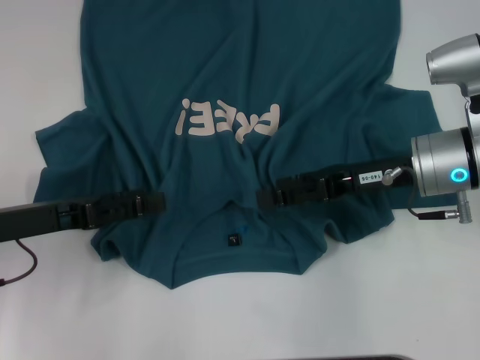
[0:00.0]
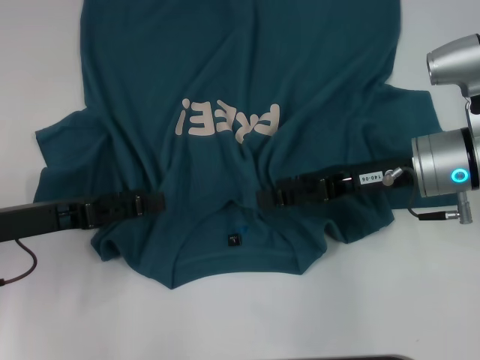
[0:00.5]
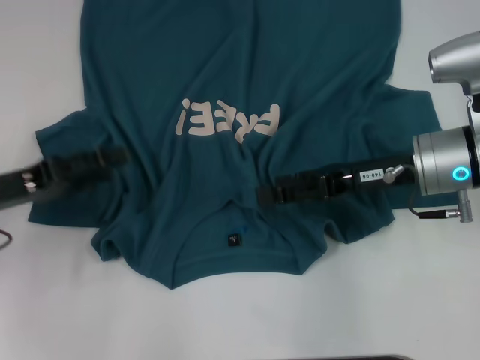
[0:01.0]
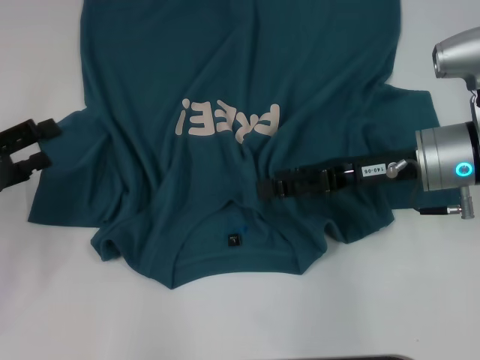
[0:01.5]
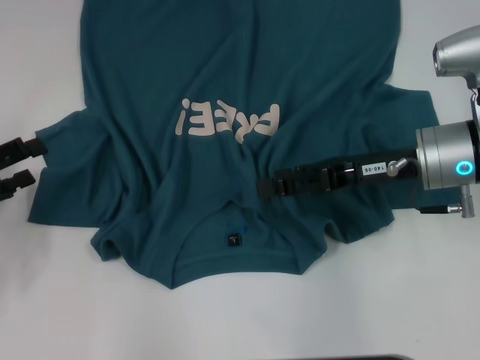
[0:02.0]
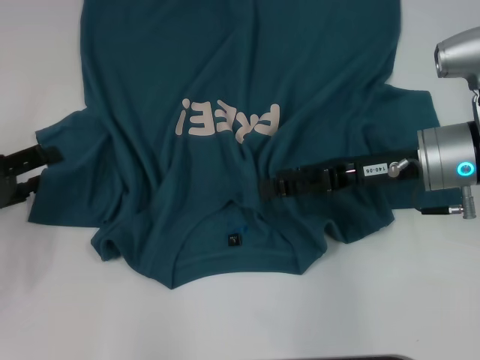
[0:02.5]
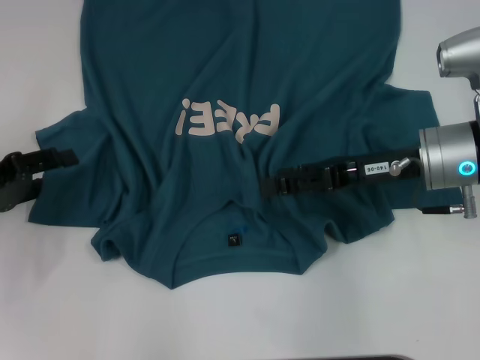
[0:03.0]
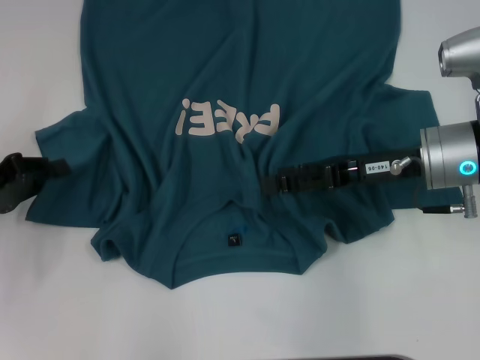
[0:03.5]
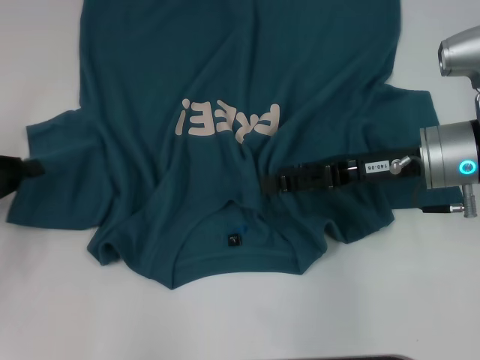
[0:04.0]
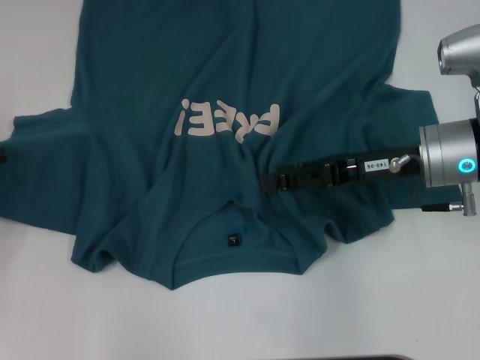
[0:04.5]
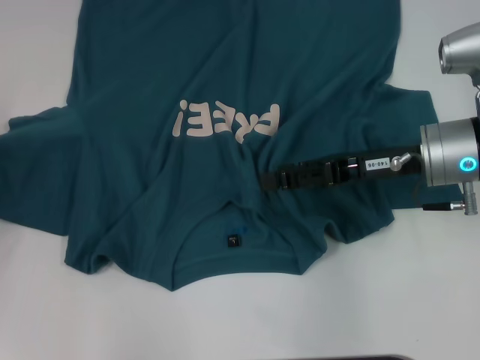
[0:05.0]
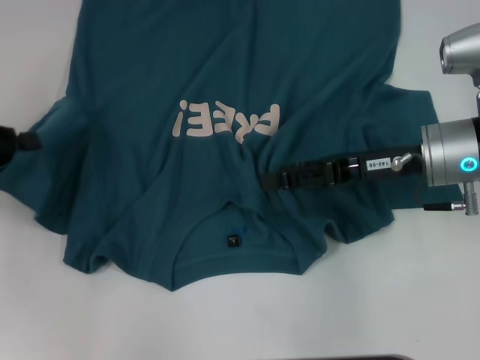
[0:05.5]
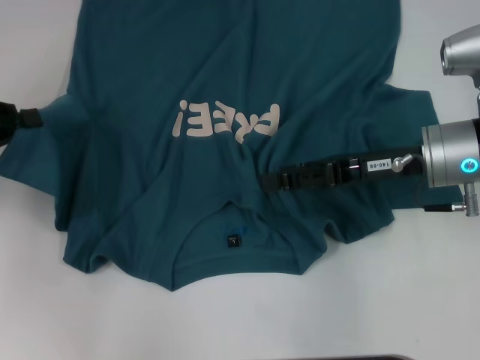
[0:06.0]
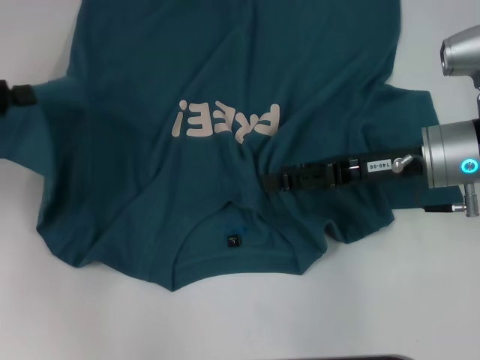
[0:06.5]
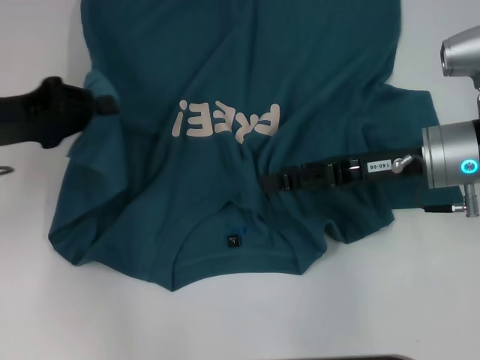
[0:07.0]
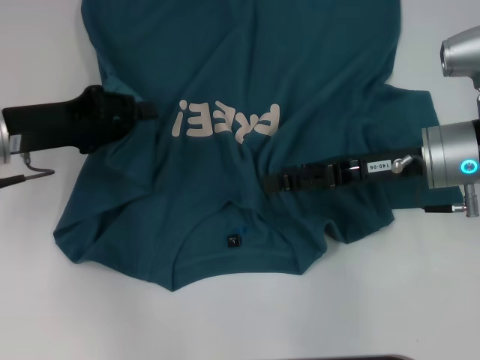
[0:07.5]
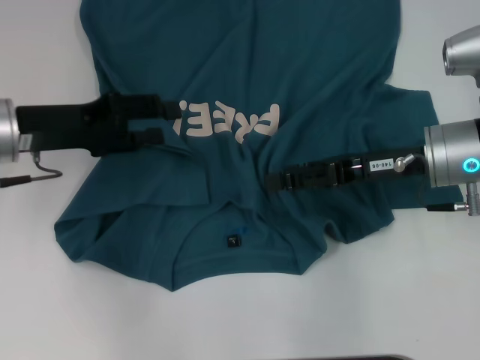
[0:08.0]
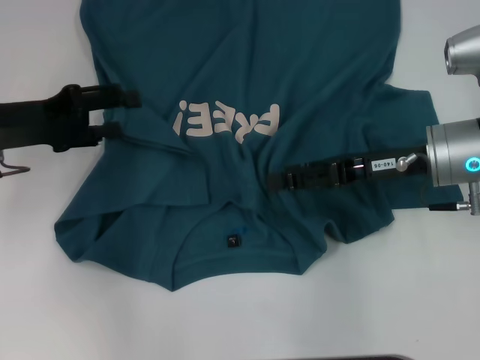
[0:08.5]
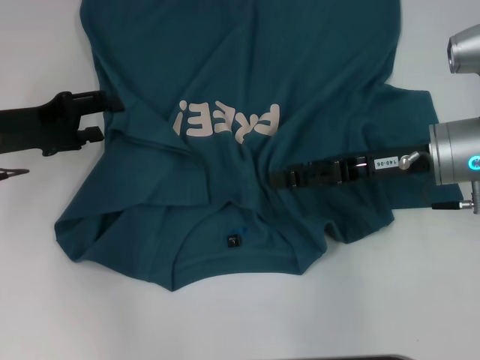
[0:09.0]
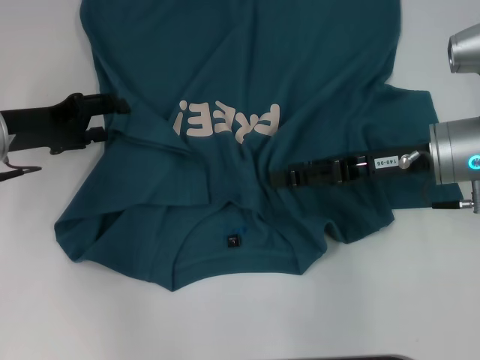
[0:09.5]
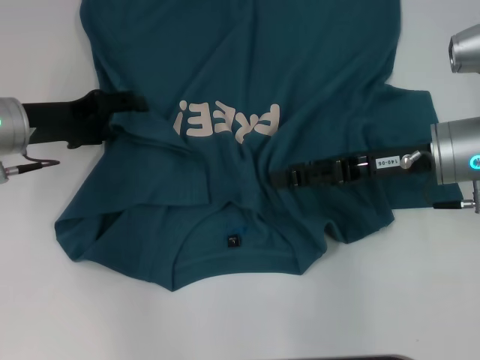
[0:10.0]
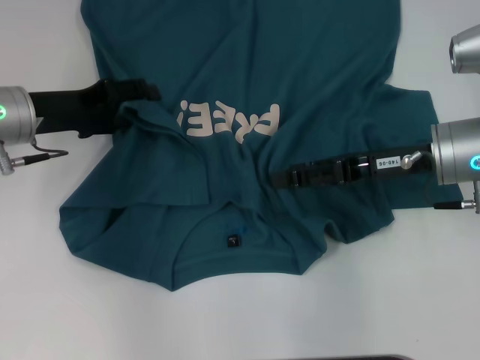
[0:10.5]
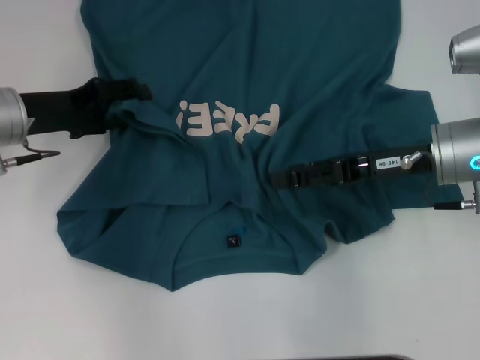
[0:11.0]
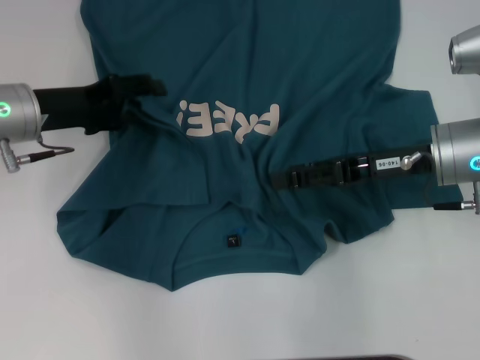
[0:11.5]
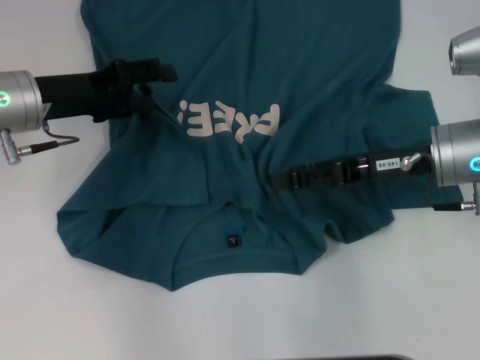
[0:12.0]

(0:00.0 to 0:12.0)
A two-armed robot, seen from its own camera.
0:00.0 - 0:02.0: The left gripper heads to the left, covering roughly 10 cm.
0:02.0 - 0:04.0: The left gripper closes up.
0:04.0 - 0:06.0: The left gripper shifts roughly 5 cm upward.
0:06.0 - 0:08.0: The left gripper is displaced to the right by roughly 10 cm, and opens.
0:10.0 - 0:12.0: The grippers move only a little.

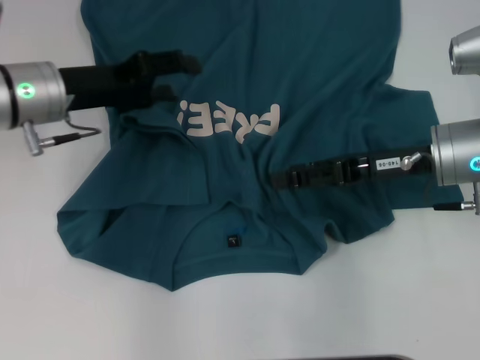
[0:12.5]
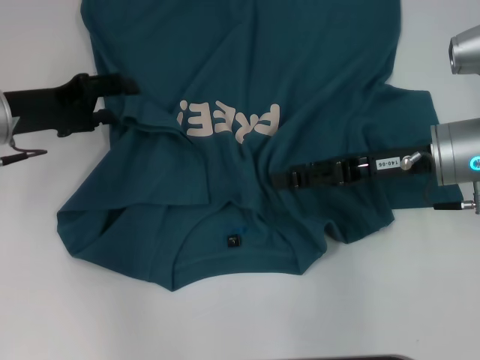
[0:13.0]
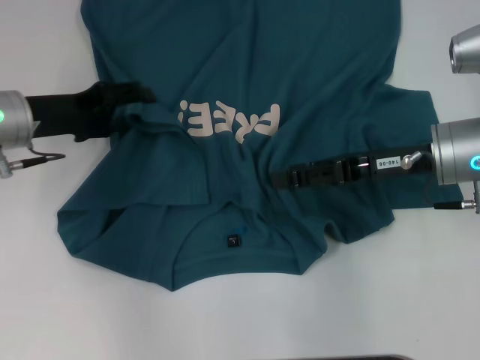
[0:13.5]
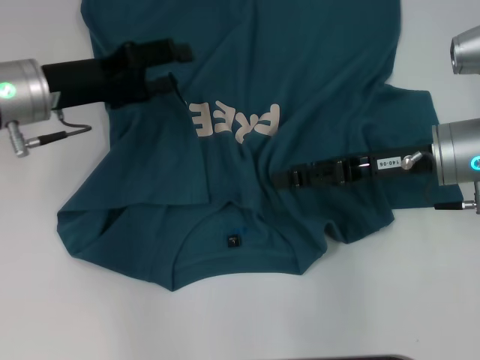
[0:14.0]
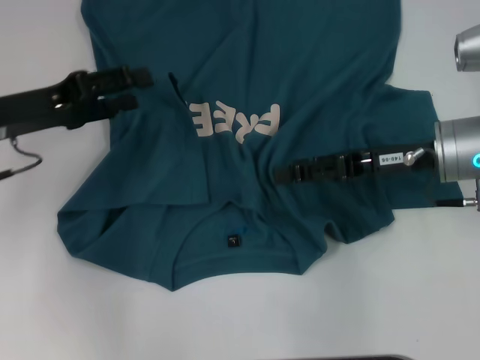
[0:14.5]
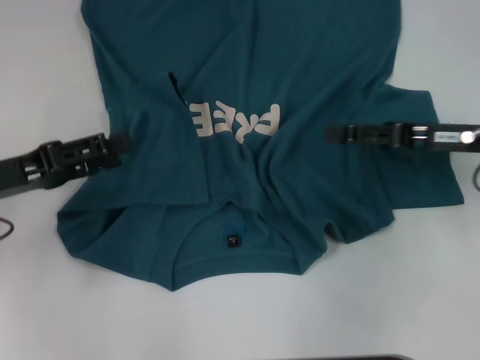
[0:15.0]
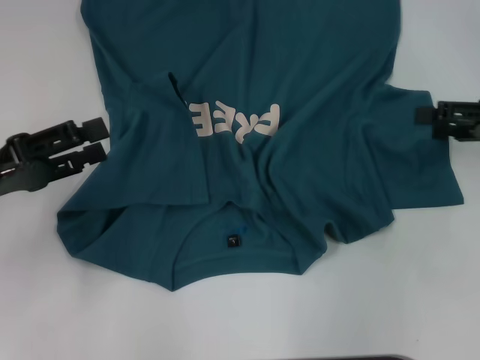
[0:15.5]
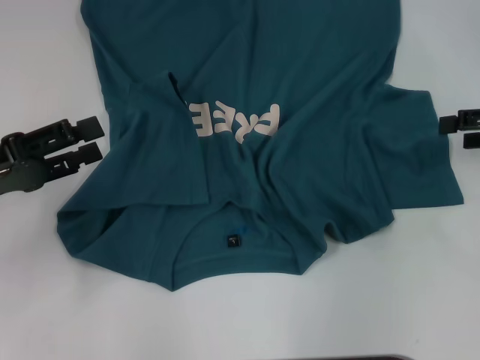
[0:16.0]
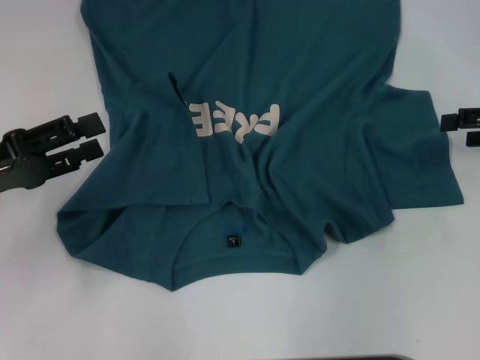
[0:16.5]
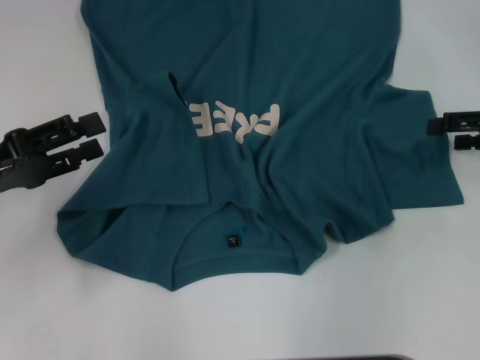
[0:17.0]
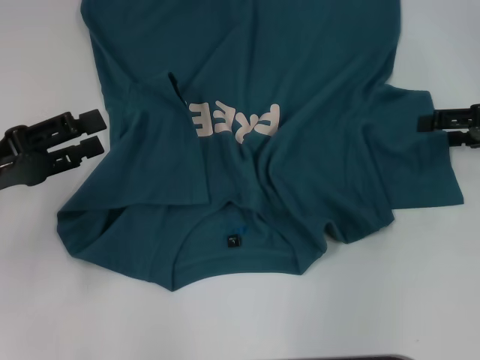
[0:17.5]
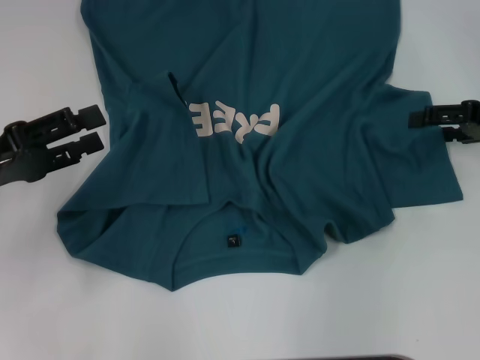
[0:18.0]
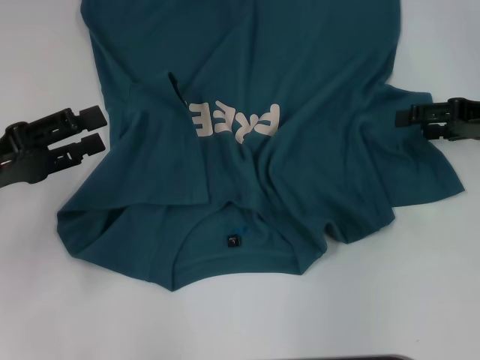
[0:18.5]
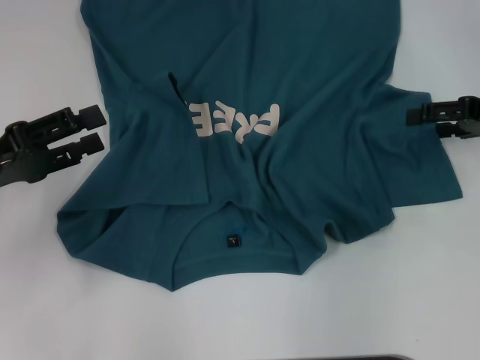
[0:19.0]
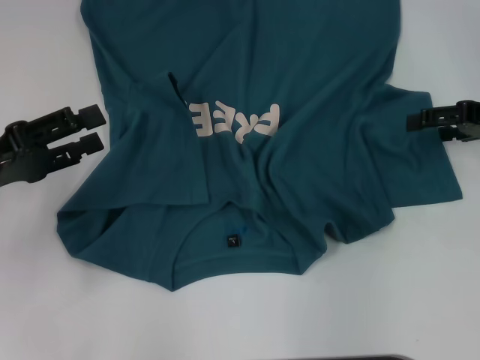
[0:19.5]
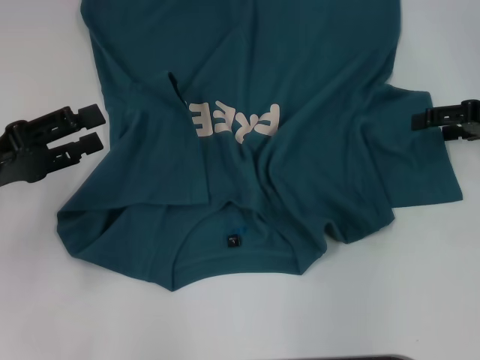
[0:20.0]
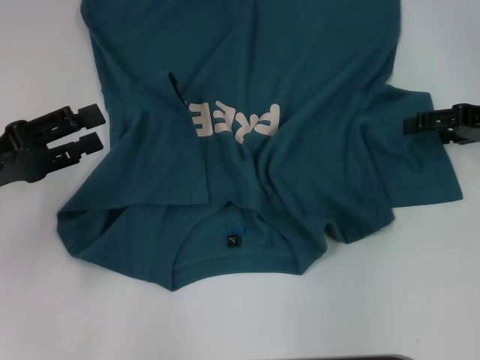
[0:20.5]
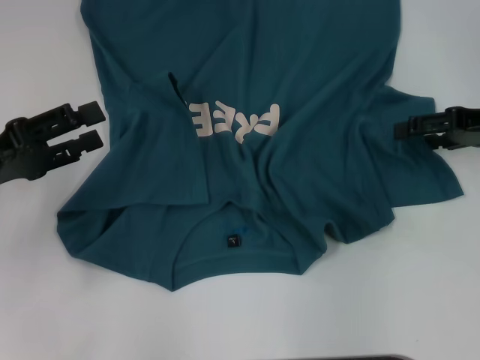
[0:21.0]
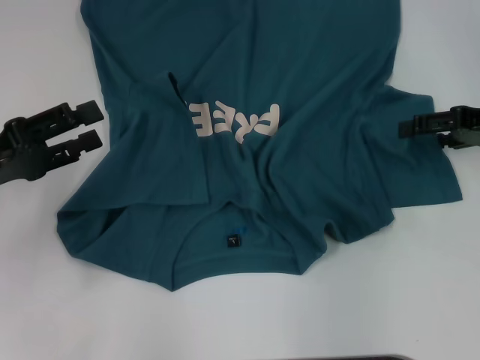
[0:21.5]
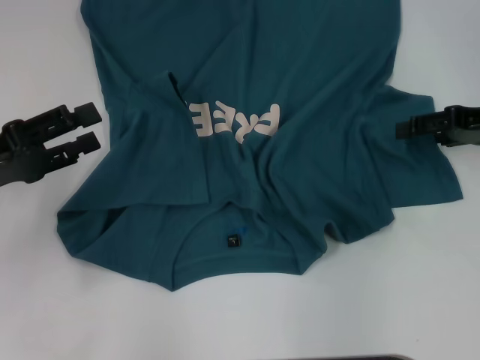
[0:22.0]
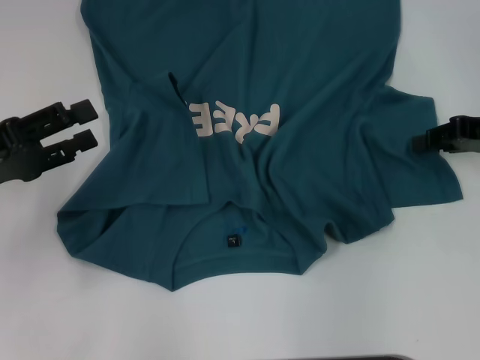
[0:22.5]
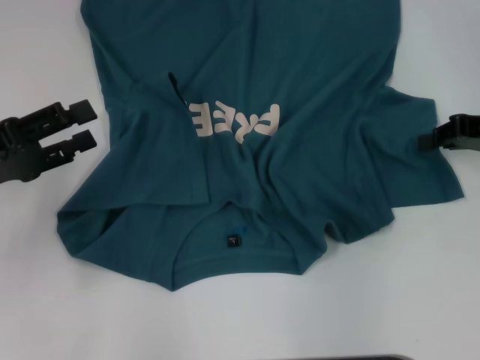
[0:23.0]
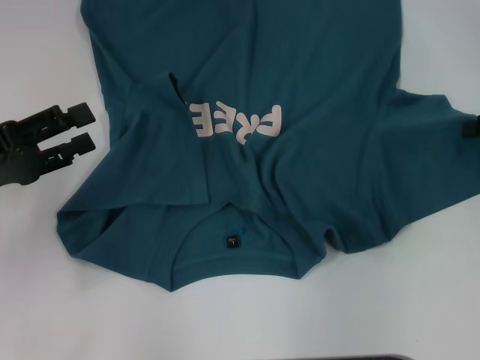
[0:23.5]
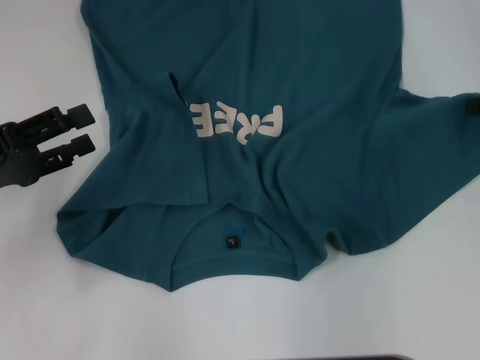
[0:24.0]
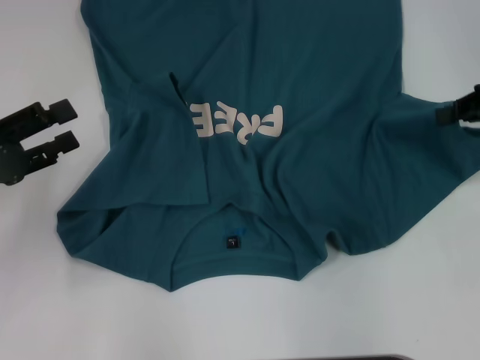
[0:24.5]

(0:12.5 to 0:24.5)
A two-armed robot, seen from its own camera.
0:12.5 - 0:14.5: The left gripper swings left and right, some 5 cm each way, with 2 reversals.
0:14.5 - 0:16.5: The right gripper is displaced to the right by about 15 cm; the left gripper goes roughly 5 cm backward.
0:16.5 - 0:20.5: The grippers stay close to where they were, moving slightly.
0:20.5 - 0:22.5: The right gripper closes.
0:22.5 - 0:24.5: The right gripper goes approximately 5 cm upward, and closes.

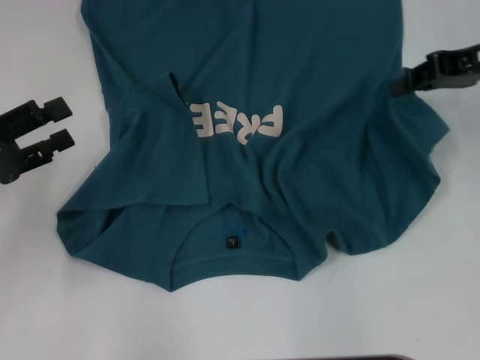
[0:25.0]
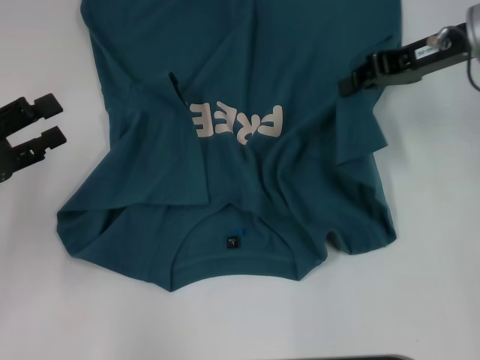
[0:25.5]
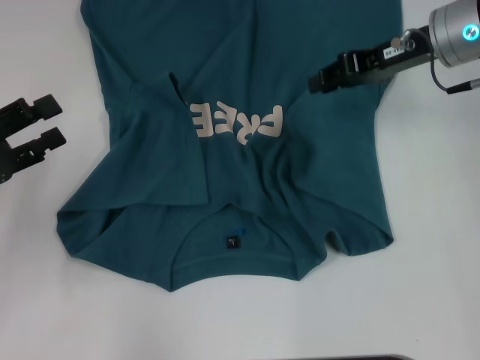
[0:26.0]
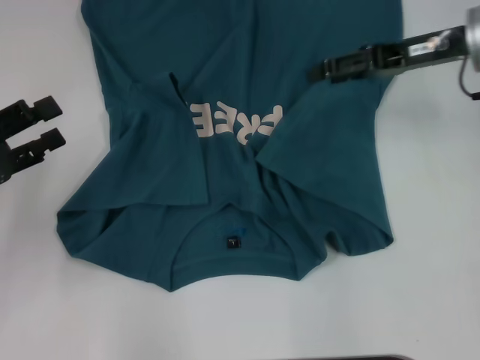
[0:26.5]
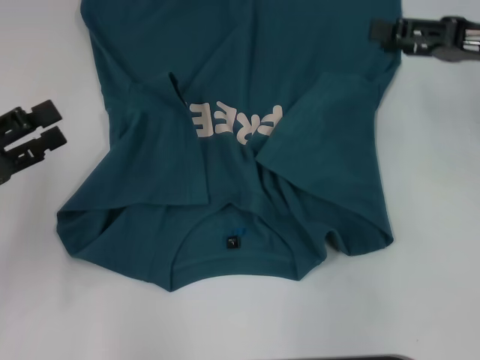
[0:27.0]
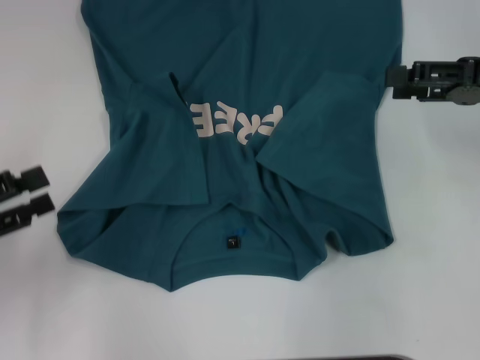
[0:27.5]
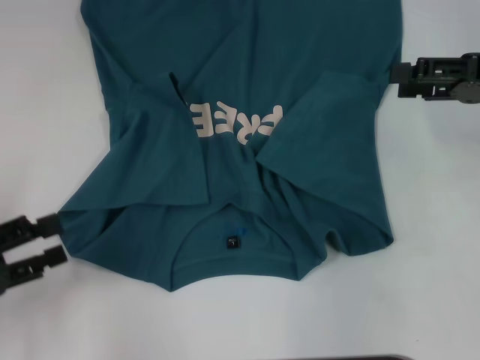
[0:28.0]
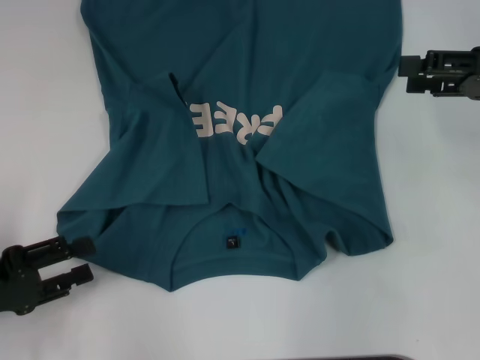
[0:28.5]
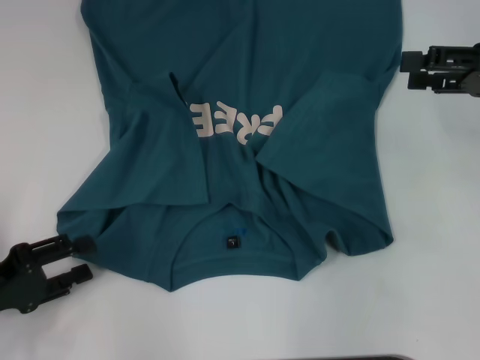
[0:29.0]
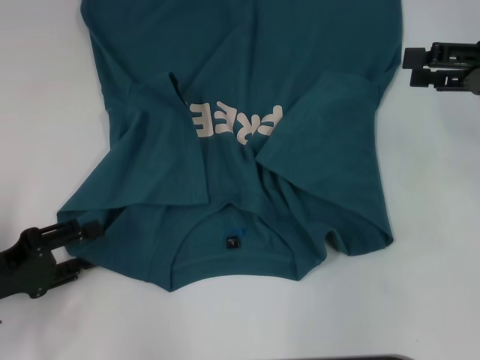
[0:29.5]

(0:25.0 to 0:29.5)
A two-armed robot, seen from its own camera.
0:25.0 - 0:27.0: The right gripper travels to the left and back again, about 10 cm each way, and opens up.
0:27.0 - 0:29.5: The left gripper heads downward, covering roughly 5 cm.
